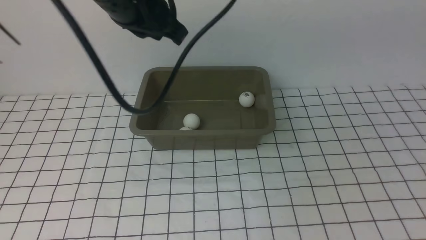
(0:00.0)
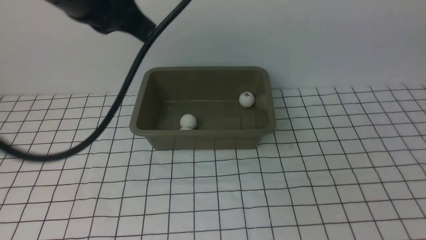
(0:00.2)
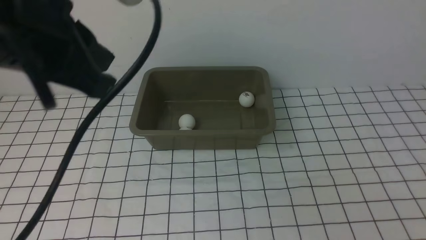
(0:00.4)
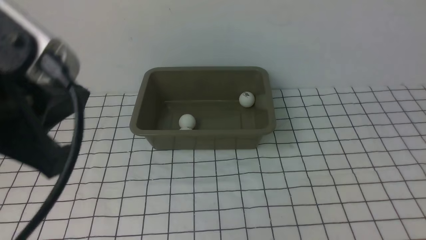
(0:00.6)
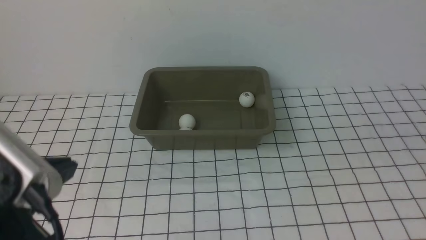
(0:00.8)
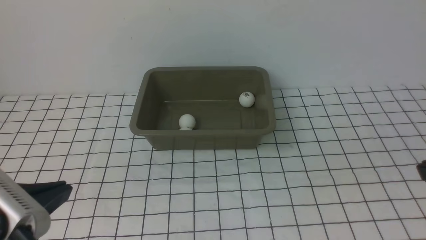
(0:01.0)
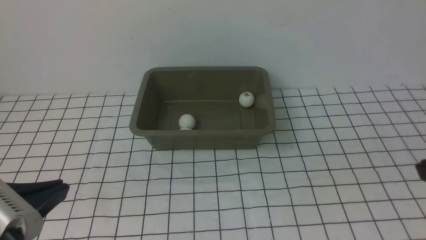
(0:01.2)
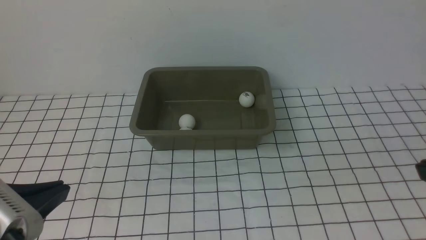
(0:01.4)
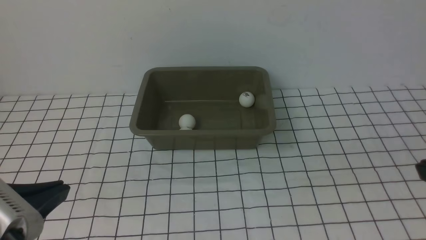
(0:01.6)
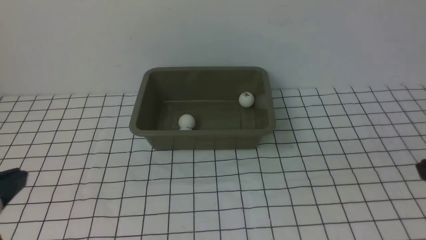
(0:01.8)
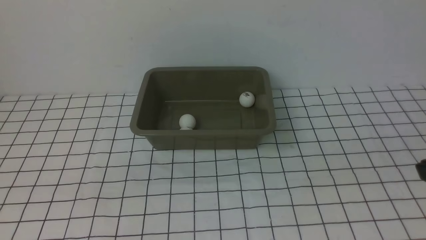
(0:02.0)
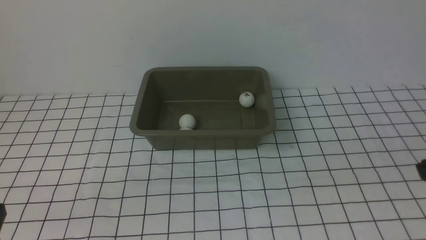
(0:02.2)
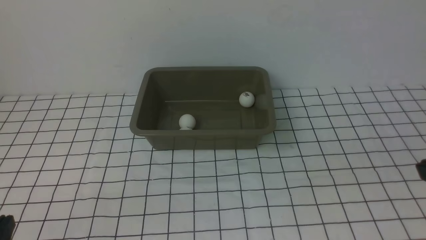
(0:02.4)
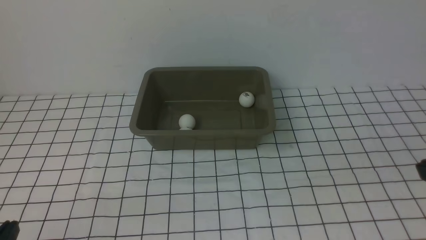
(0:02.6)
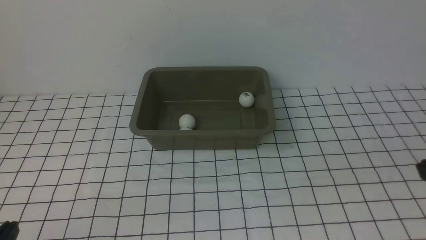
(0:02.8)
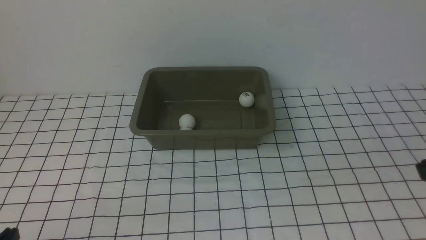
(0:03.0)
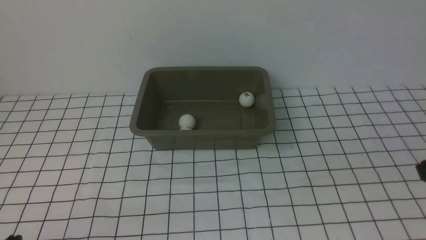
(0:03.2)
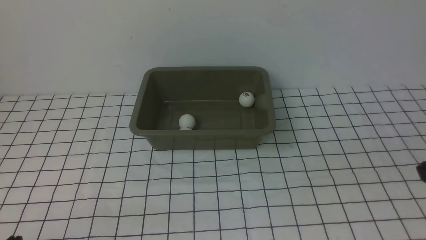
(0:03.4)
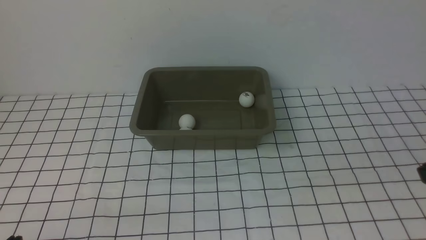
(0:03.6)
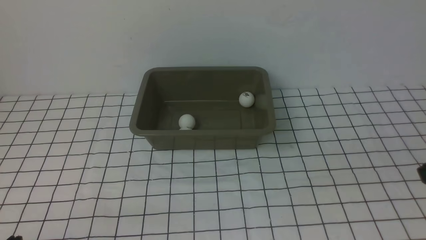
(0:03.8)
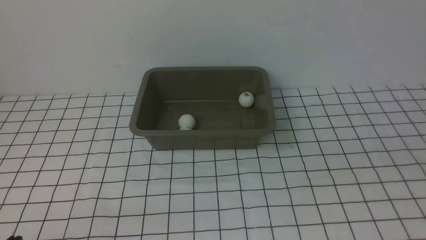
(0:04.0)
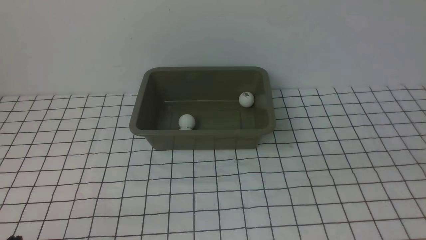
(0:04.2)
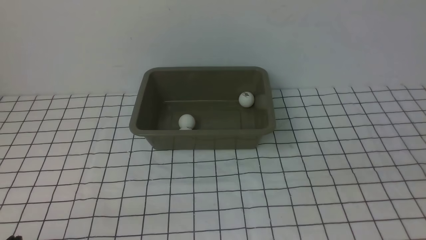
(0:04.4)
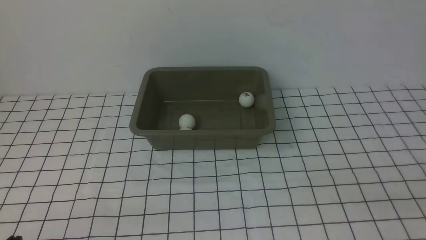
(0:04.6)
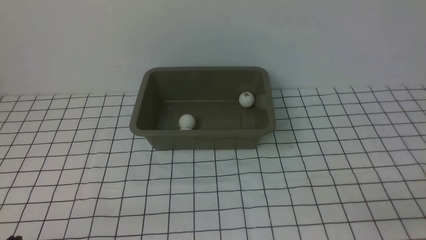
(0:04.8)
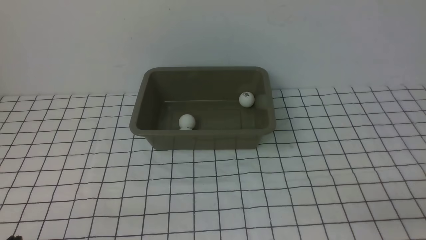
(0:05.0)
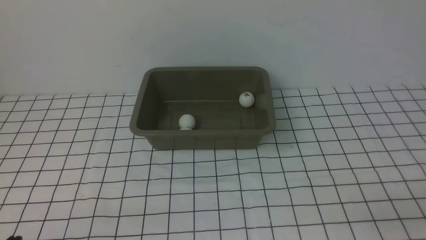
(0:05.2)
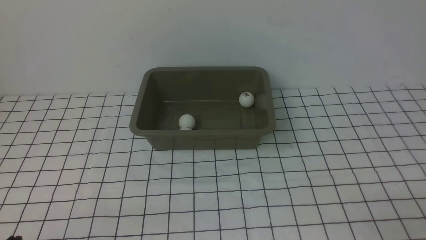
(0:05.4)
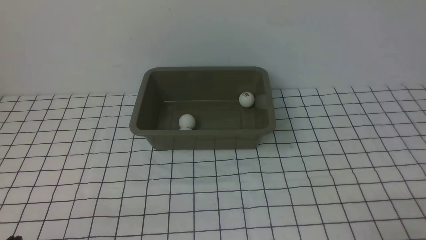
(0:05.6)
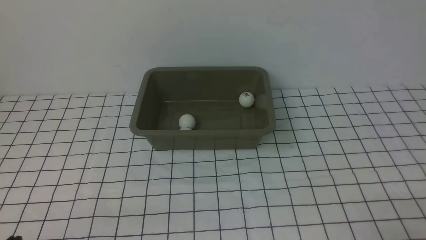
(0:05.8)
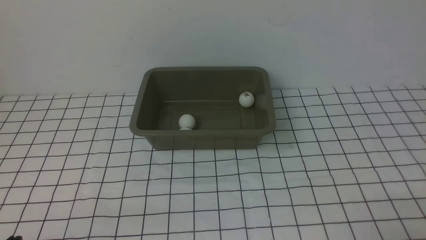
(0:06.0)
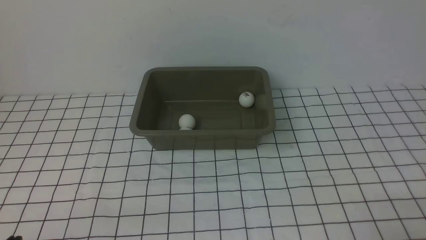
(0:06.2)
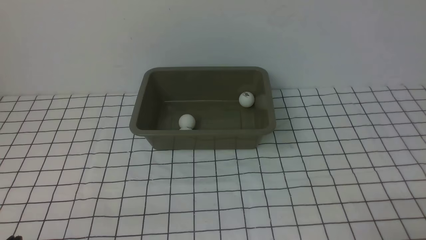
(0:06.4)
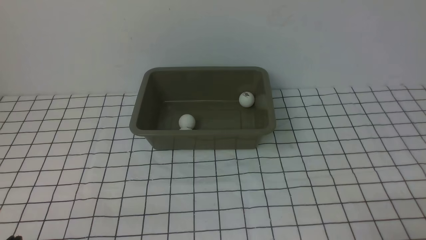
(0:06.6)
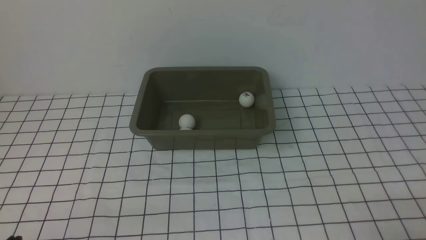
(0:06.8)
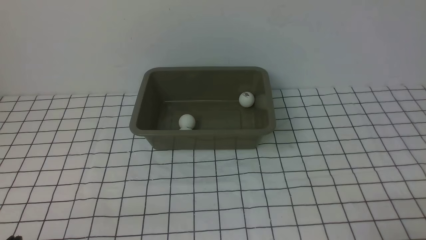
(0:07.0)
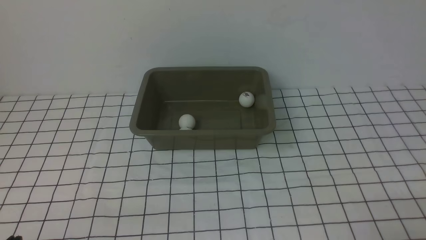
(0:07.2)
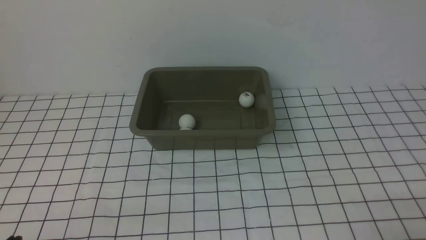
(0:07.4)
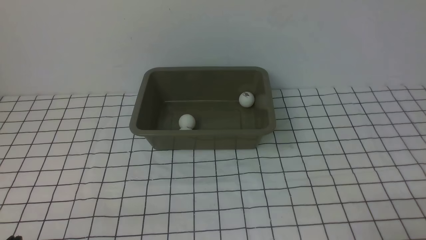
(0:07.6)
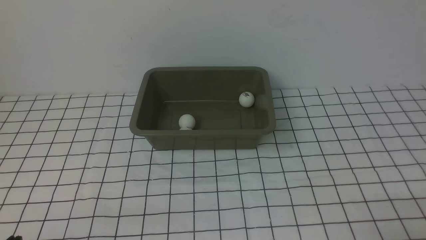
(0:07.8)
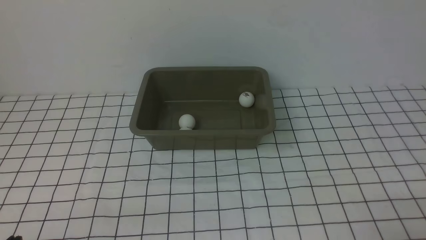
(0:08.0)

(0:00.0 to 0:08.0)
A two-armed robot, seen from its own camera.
0:00.0 - 0:01.6: The right gripper shifts some 20 cm downward and backward, while the left gripper is displaced downward, backward and to the left by roughly 25 cm.
0:01.6 - 0:03.2: The left gripper shifts some 10 cm downward.
0:06.4 - 0:08.0: Both grippers stay put.

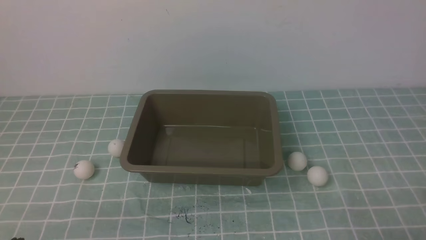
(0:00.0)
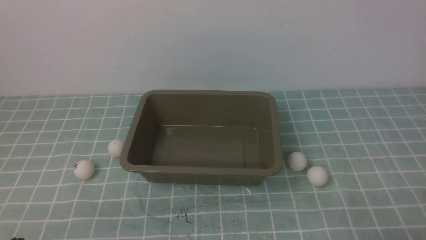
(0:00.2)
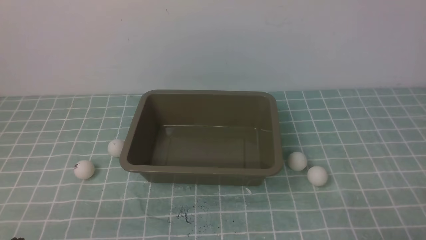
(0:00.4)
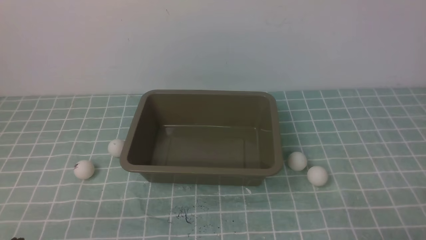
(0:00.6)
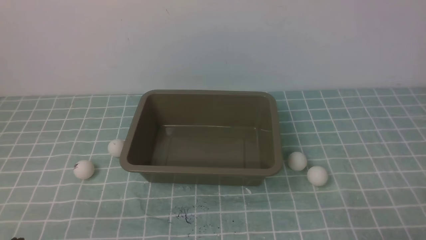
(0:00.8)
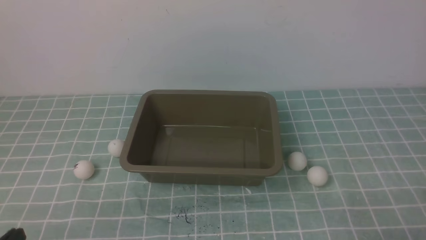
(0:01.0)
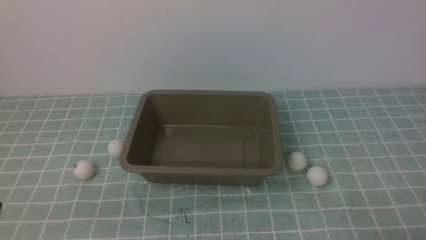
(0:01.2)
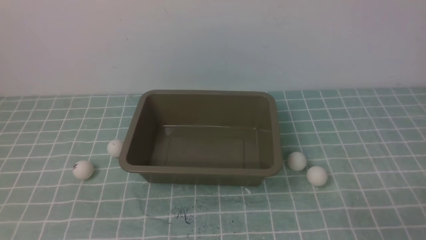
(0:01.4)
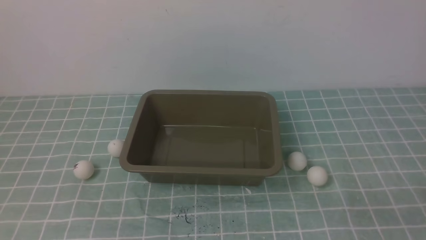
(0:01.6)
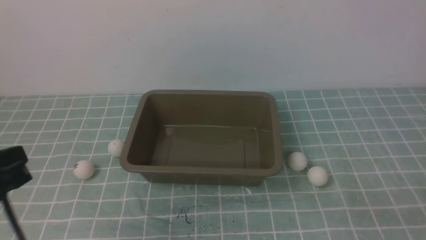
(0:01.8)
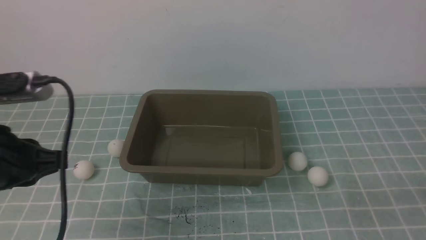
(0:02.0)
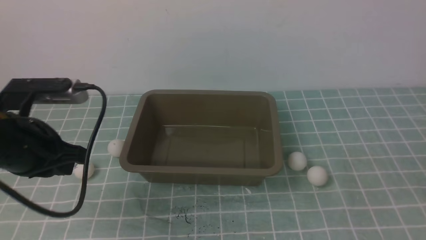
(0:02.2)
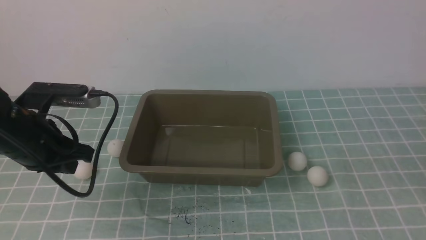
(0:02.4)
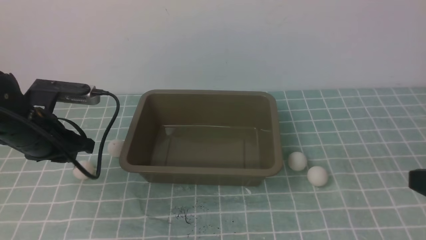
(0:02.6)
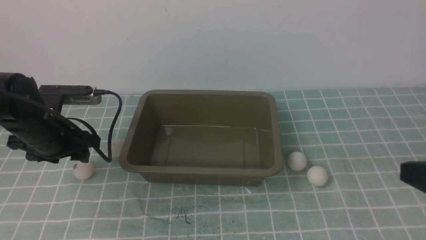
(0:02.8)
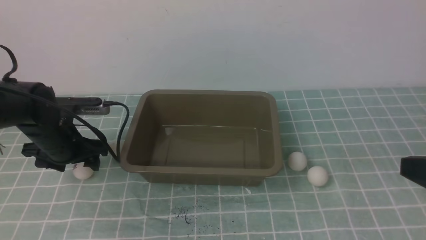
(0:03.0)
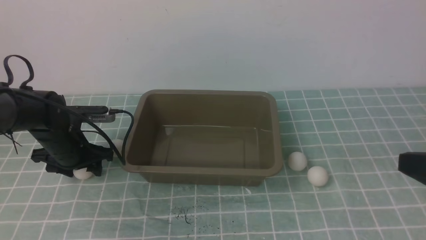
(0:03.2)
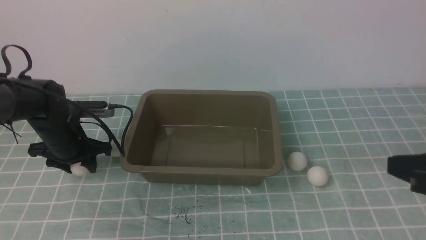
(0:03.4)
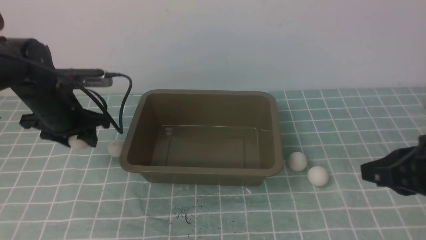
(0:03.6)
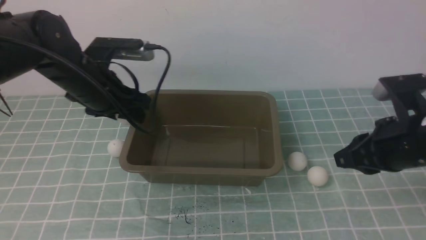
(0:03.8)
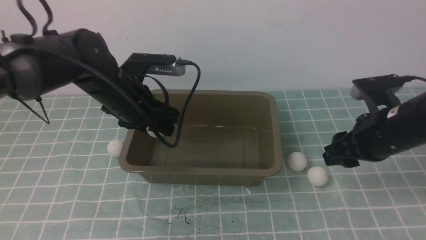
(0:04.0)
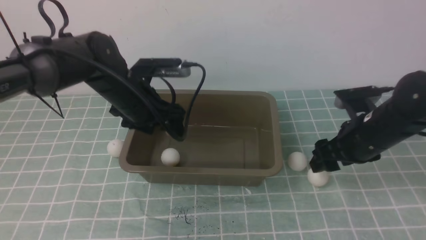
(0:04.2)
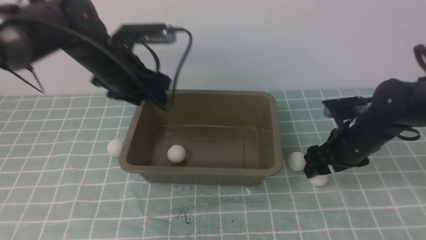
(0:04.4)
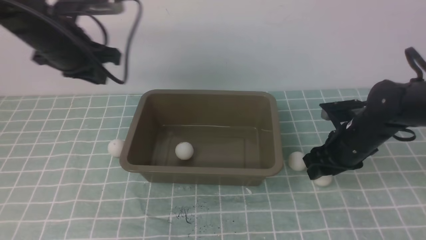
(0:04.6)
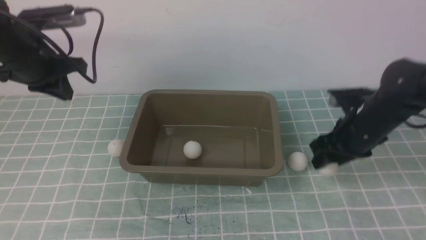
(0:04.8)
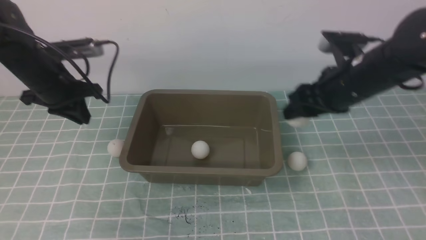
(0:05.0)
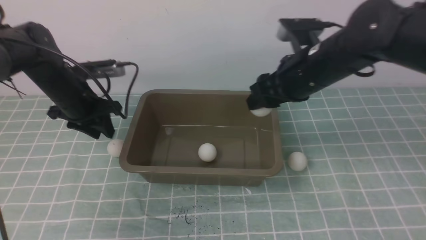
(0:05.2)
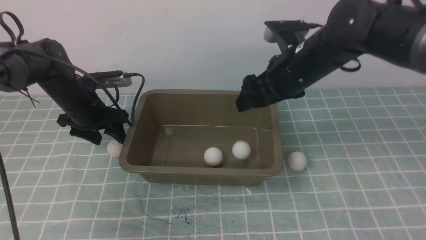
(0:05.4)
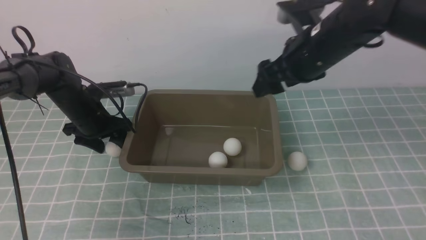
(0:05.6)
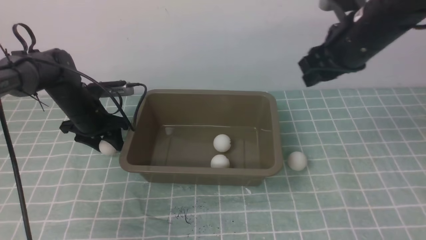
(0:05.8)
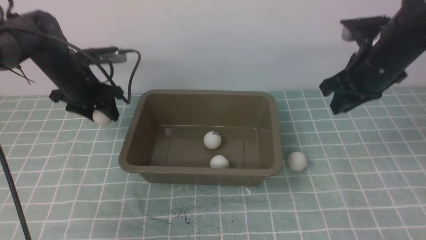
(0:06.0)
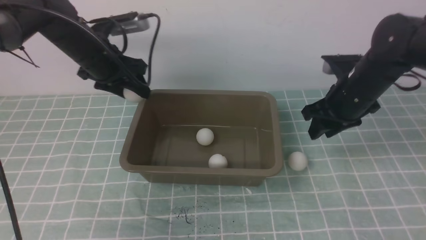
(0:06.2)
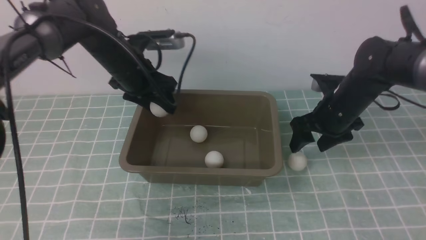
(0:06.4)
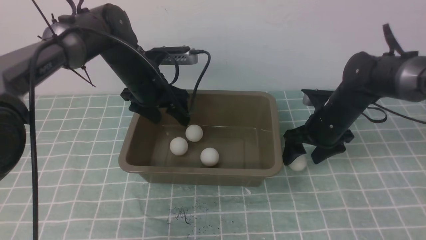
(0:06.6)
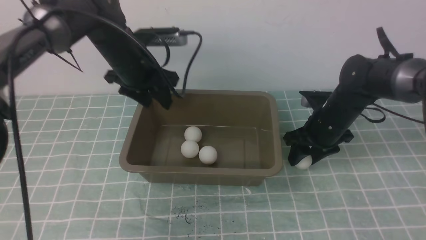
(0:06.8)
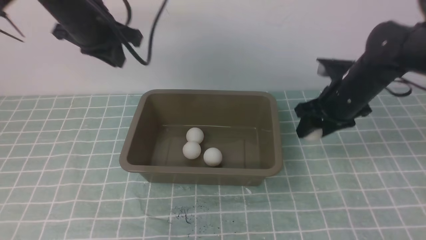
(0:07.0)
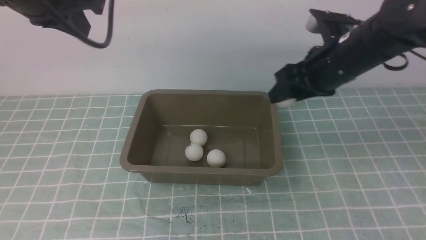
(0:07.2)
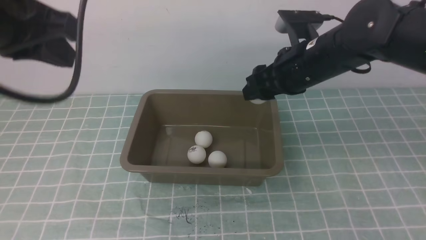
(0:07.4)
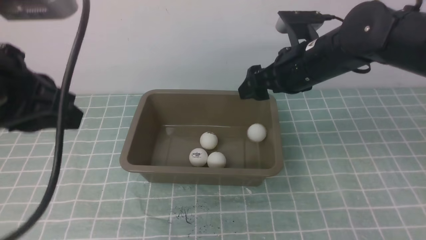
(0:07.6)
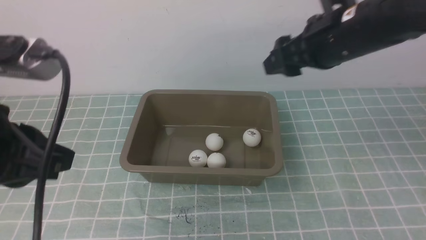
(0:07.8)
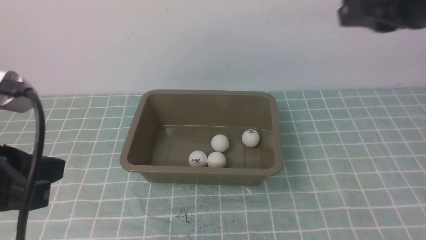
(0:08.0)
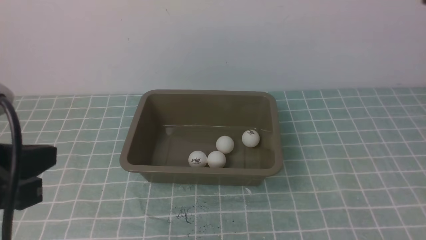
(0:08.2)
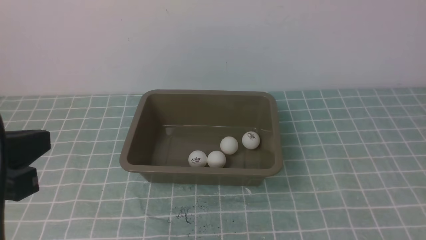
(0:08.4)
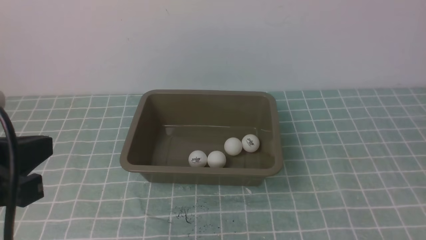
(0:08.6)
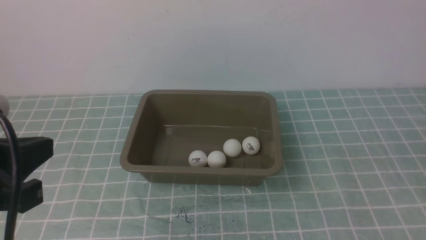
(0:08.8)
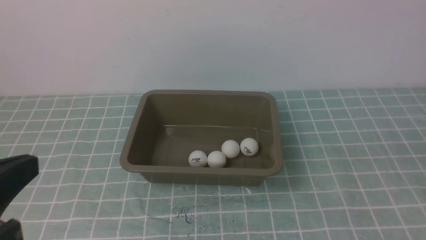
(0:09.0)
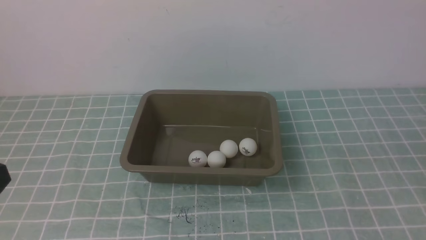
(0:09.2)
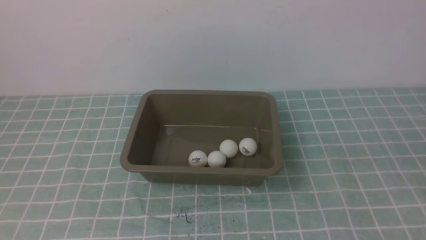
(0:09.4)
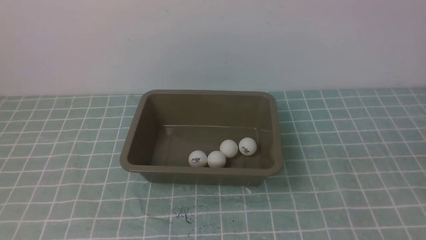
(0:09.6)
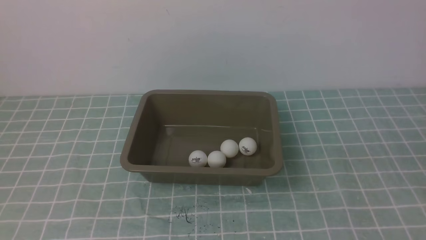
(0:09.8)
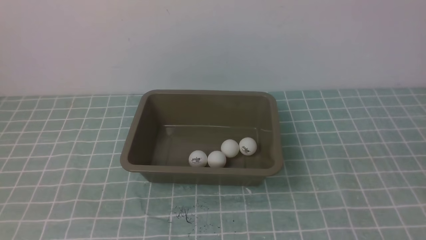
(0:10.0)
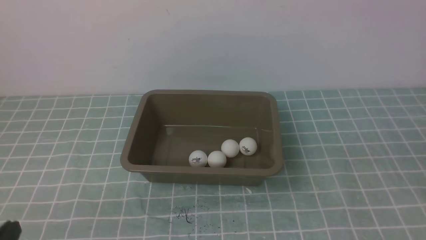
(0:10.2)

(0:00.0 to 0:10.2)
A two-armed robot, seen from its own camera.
Step, 0:00.0 - 0:03.2: use the left arm to clamp the table tennis ball closest to it.
Step, 0:03.4 - 0:04.0: use the left arm to put the table tennis ball into the box.
Step, 0:04.4 - 0:04.8: use the right arm to clamp the table tennis ball closest to it.
Step, 0:05.0 - 0:05.4: use the right arm to put the table tennis ball into the box.
Step, 0:05.6 - 0:06.0: use the left arm to clamp the table tennis ball closest to it.
Step, 0:06.2 - 0:06.4: use the left arm to put the table tennis ball into the box.
Step, 0:06.6 - 0:06.8: use the right arm to clamp the table tennis ball closest to it.
Step, 0:07.0 - 0:07.4: use the right arm to put the table tennis ball into the box.
0:01.4 - 0:03.0: The left gripper is displaced forward by some 30 cm, and opens. Meanwhile the right gripper travels upward and forward by approximately 15 cm.
0:03.0 - 0:04.4: The right gripper moves forward and downward, approximately 25 cm, and opens up, while the left gripper heads upward and to the right, covering approximately 15 cm.
0:04.4 - 0:05.8: The left gripper is displaced downward, to the left and forward by about 15 cm, and closes and opens again. The right gripper goes roughly 15 cm upward.
0:05.8 - 0:07.2: The left gripper moves upward and backward, some 30 cm, and closes its fingers. The right gripper reaches approximately 15 cm downward, then returns.
0:07.2 - 0:08.8: The grippers both shift backward by approximately 25 cm. The right gripper closes up.
0:08.8 - 0:10.2: The left gripper heads downward, covering approximately 15 cm.
